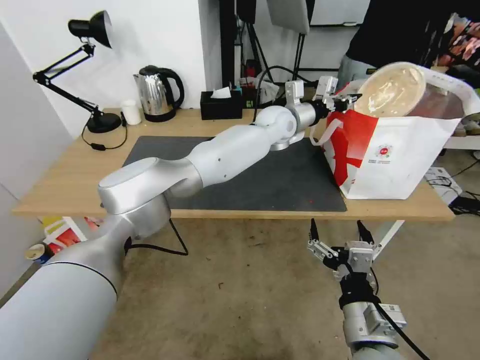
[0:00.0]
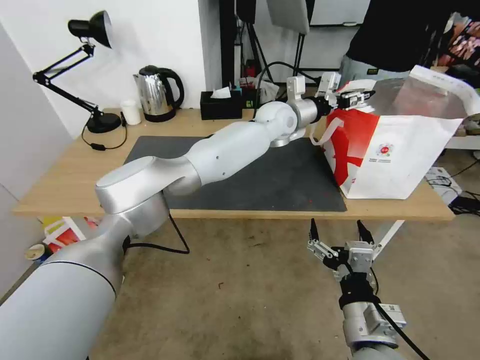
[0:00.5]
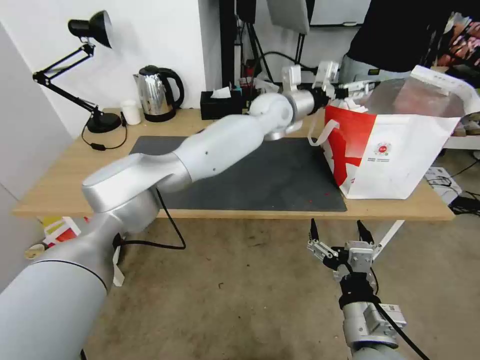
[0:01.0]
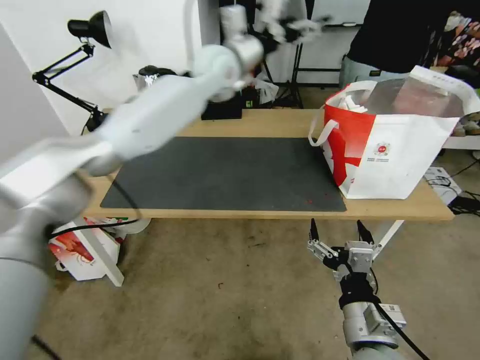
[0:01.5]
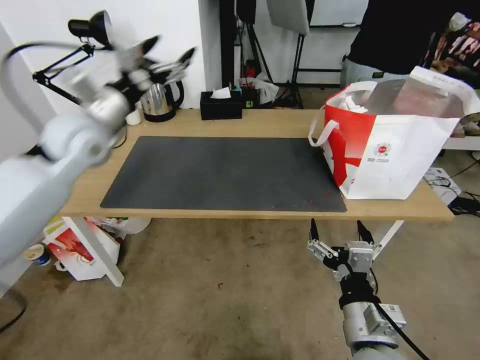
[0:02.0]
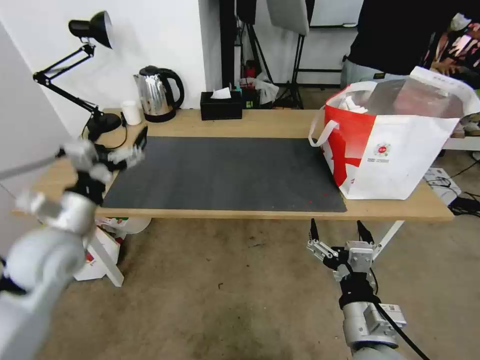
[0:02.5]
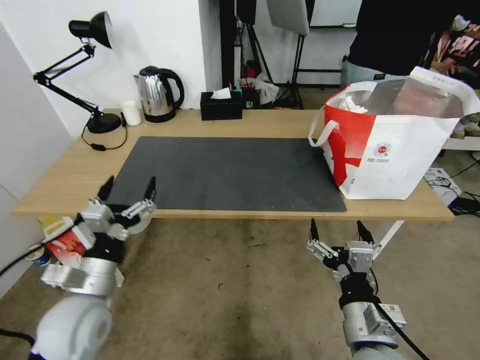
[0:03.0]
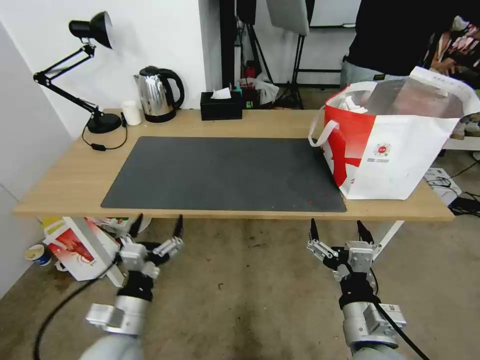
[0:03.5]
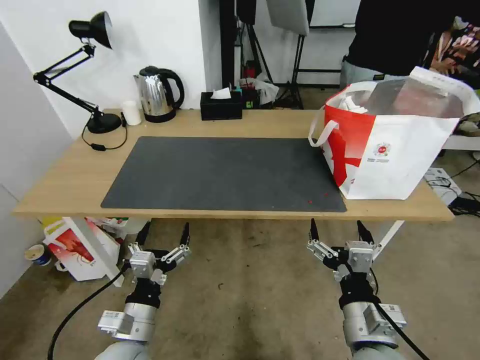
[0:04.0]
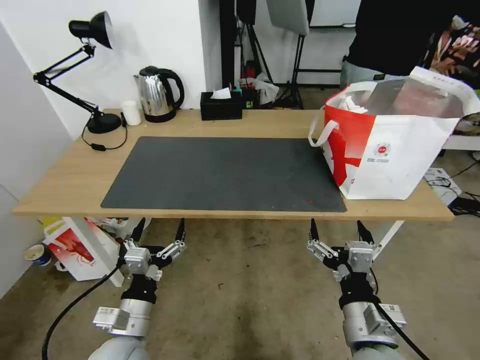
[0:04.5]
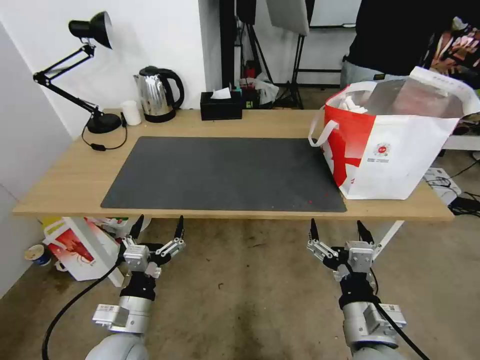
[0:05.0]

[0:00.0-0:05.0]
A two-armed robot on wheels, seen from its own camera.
Task of the whole recording: Pick up the trash from the table and place it into the takeout bag.
0:00.0 to 0:02.5: The left gripper travels to the left and backward by some 50 cm, and opens its fingers.
0:02.5 to 0:05.0: The left gripper goes approximately 20 cm downward, backward and to the right.
